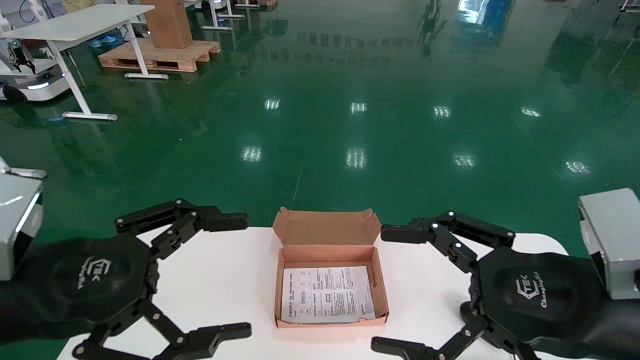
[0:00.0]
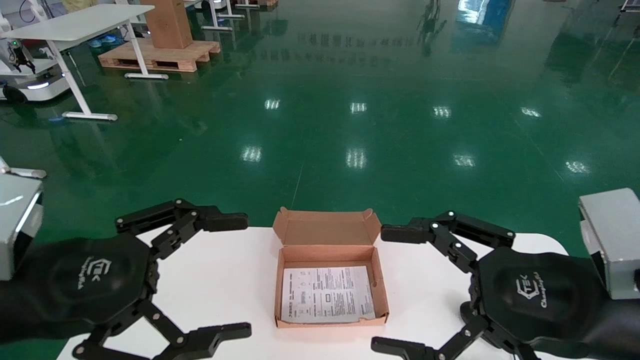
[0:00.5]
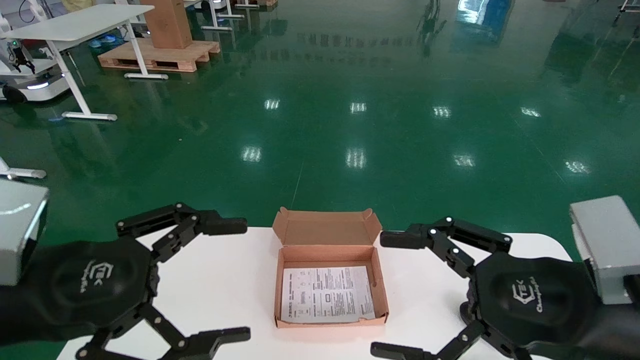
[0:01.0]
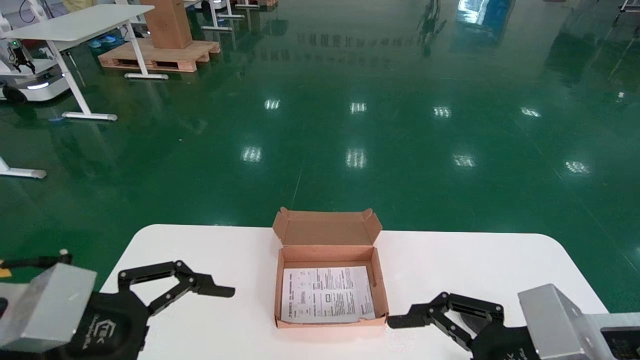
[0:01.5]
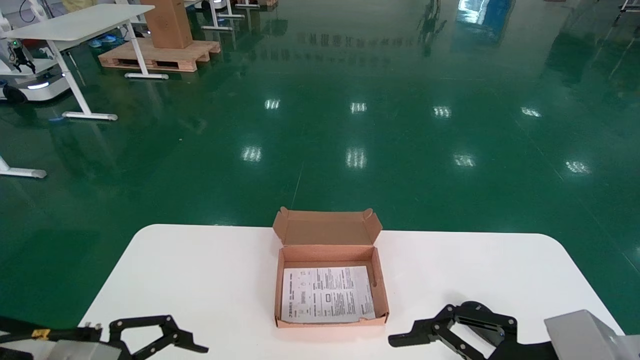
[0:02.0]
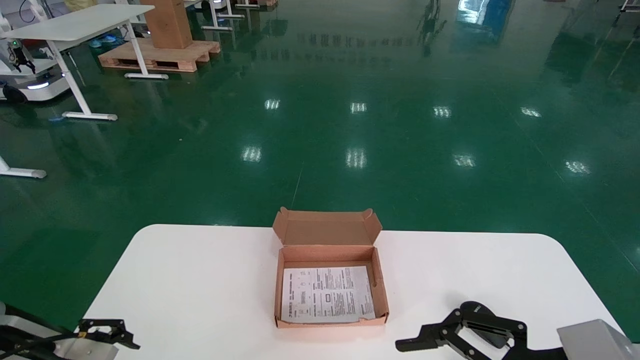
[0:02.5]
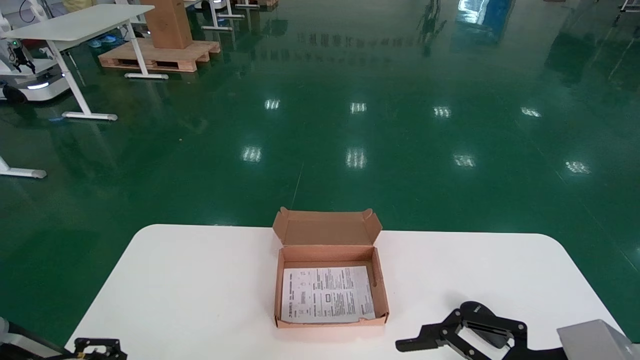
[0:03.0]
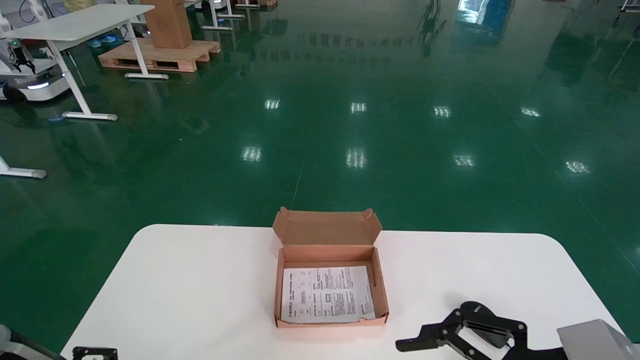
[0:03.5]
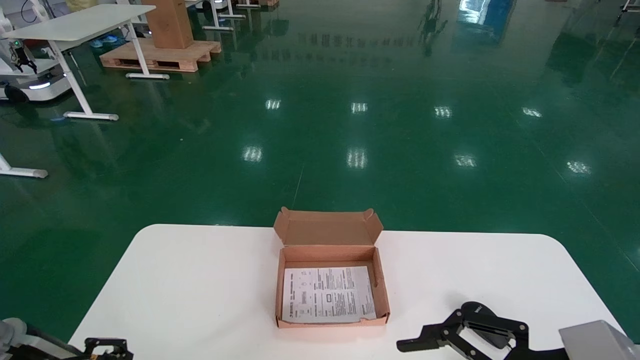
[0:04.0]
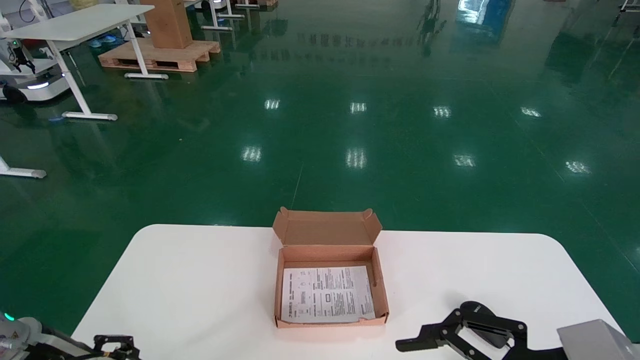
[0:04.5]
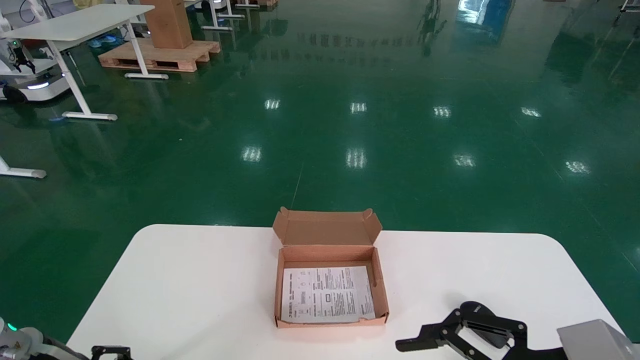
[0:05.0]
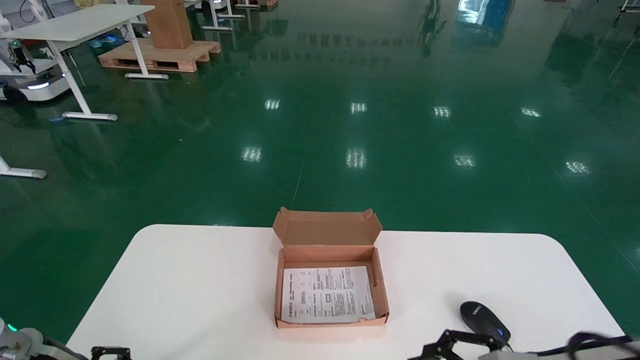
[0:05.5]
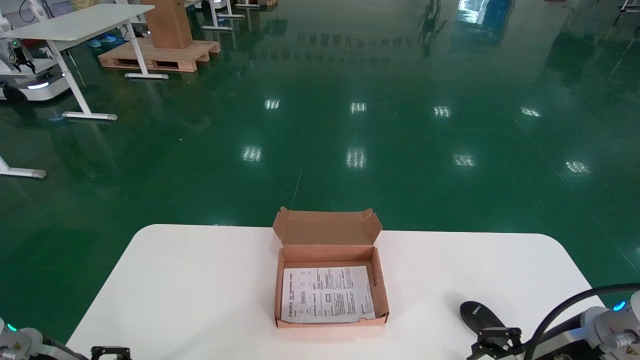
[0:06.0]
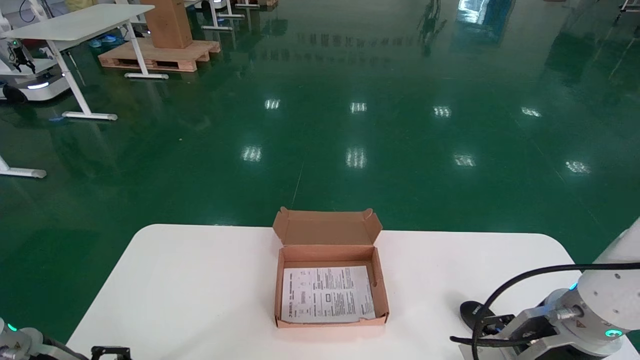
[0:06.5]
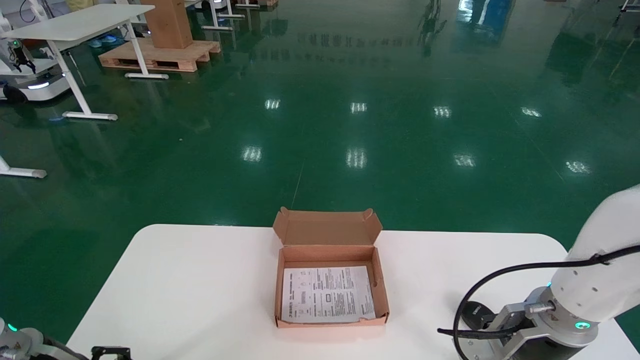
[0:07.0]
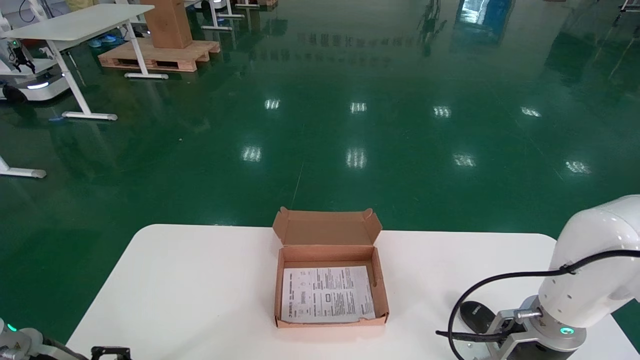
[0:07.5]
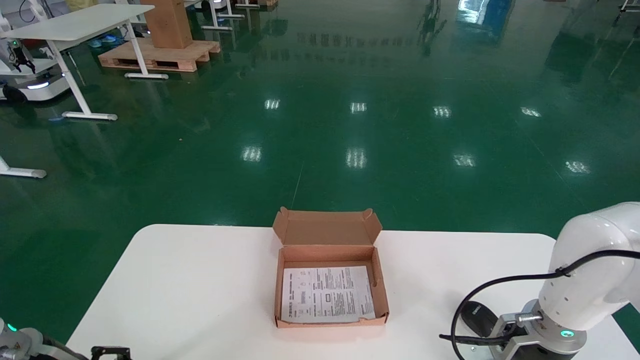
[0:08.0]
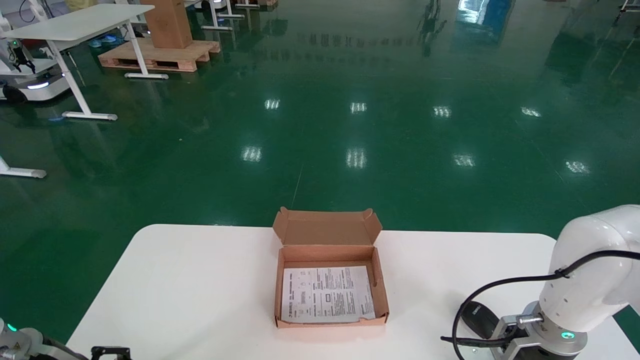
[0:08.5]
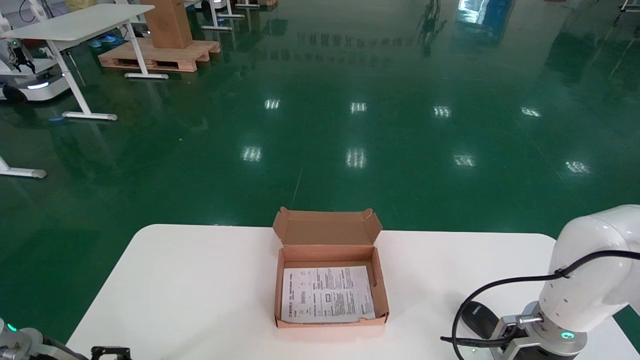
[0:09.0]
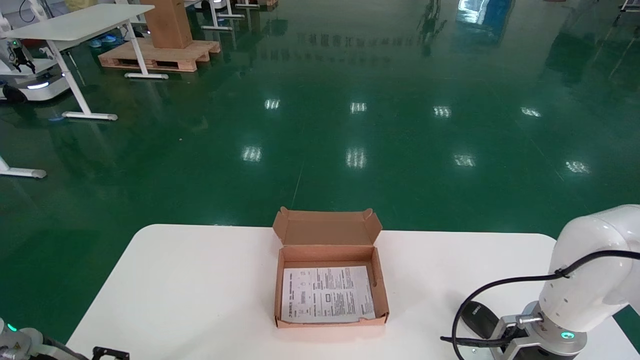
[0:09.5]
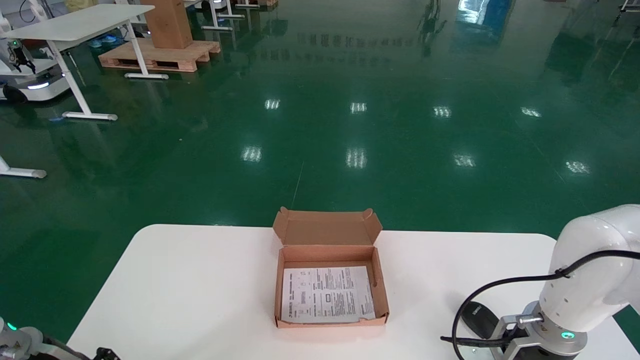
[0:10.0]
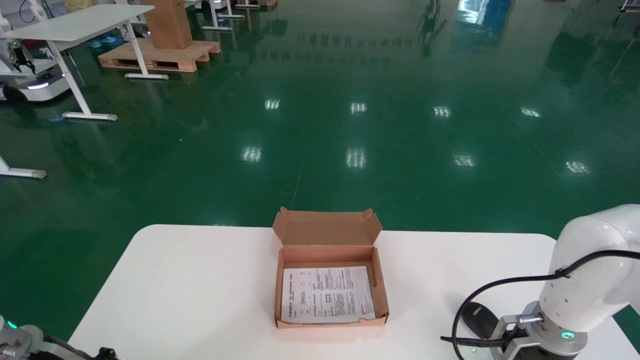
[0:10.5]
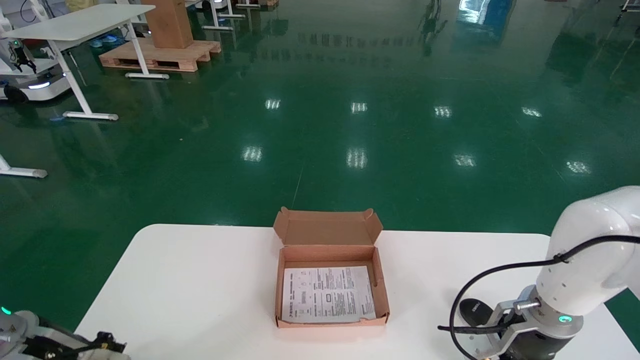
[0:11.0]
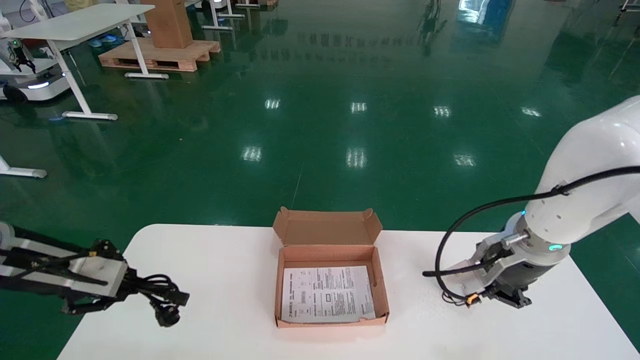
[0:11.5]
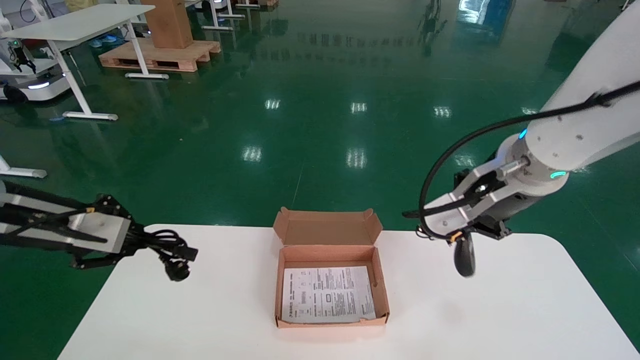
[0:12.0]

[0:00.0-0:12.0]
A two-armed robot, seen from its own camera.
Step, 0:01.0 to 0:11.5: Grab and pick up the mouse and power cord from the accessory packaging area.
0:00.0 to 0:02.0: The left gripper moves downward, approximately 5 cm.
0:02.0 to 0:04.0: The left gripper shifts about 15 cm downward, forward and to the left.
0:04.0 to 0:06.0: The left gripper changes place by approximately 5 cm.
0:06.0 to 0:08.0: The right gripper goes about 20 cm forward and downward.
0:08.0 to 0:10.0: The grippers move only a little.
0:10.0 to 0:12.0: The grippers both shift upward by roughly 5 cm. The left gripper closes up; the right gripper closes its fingers.

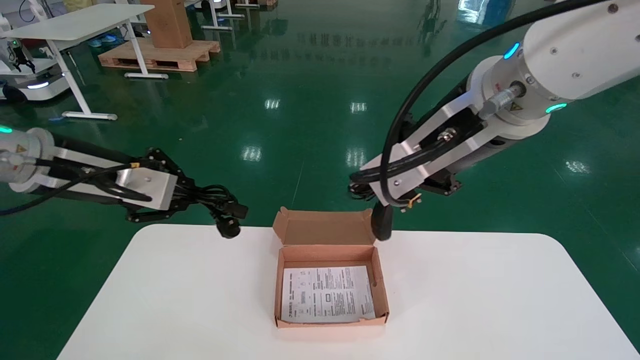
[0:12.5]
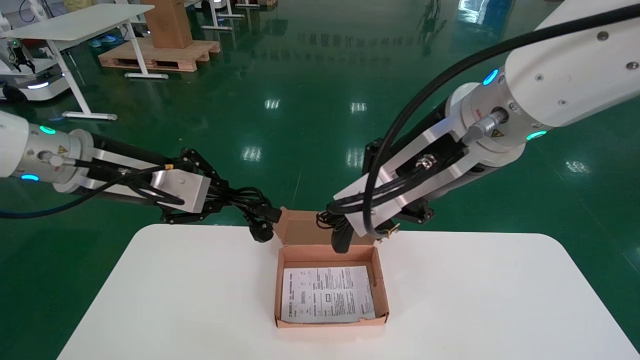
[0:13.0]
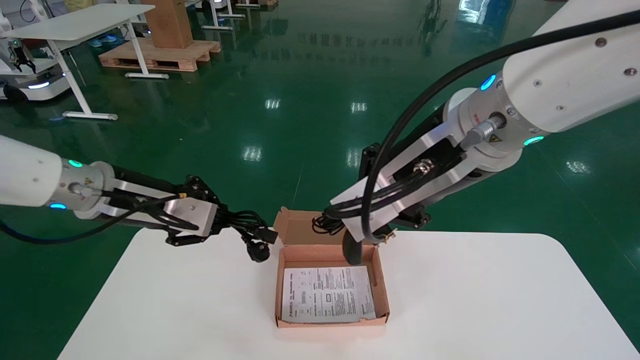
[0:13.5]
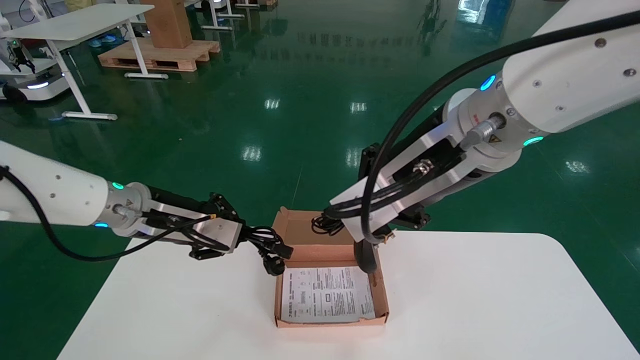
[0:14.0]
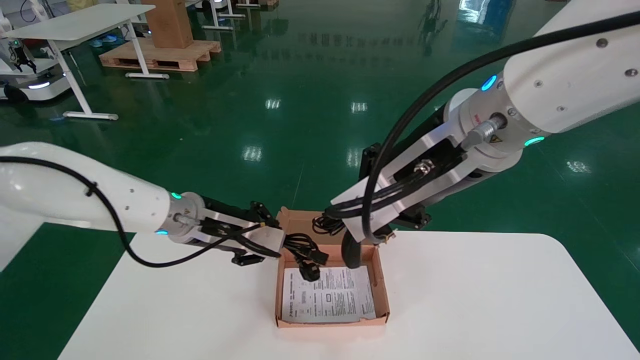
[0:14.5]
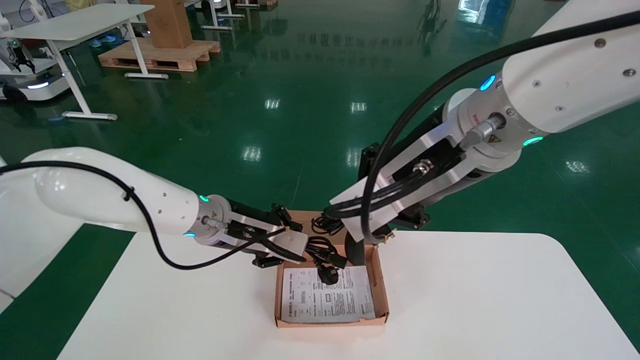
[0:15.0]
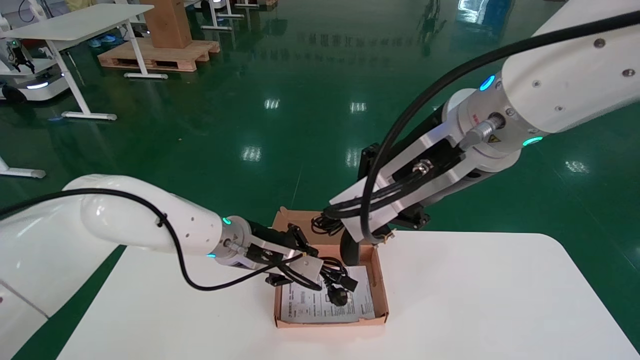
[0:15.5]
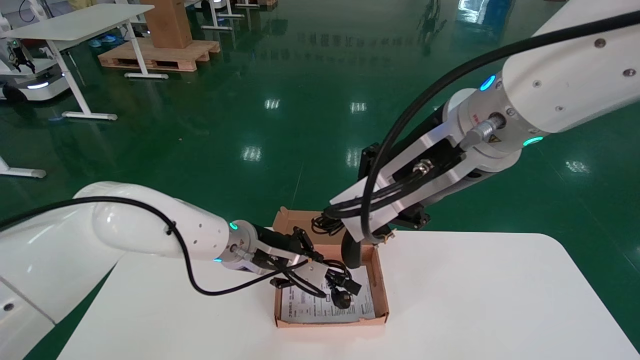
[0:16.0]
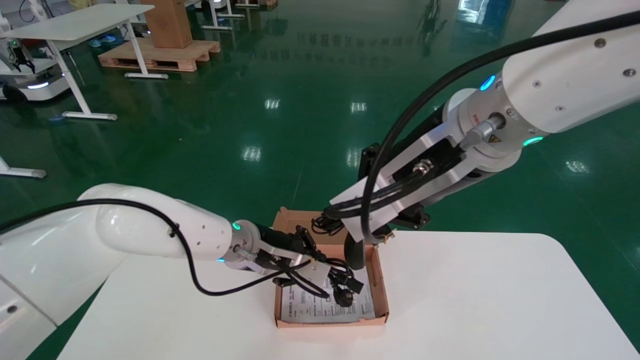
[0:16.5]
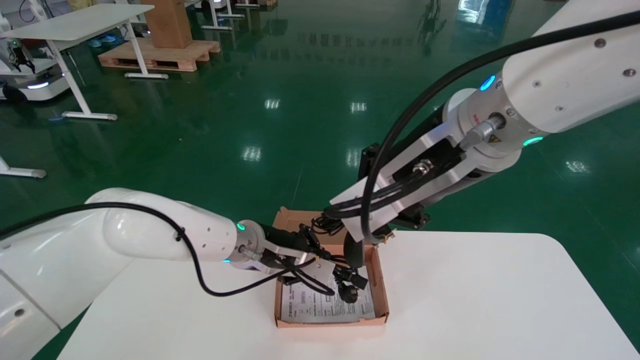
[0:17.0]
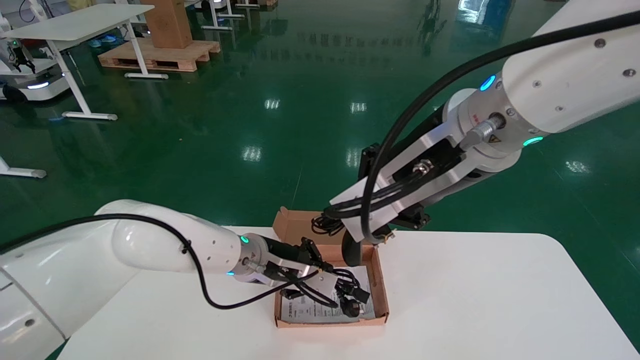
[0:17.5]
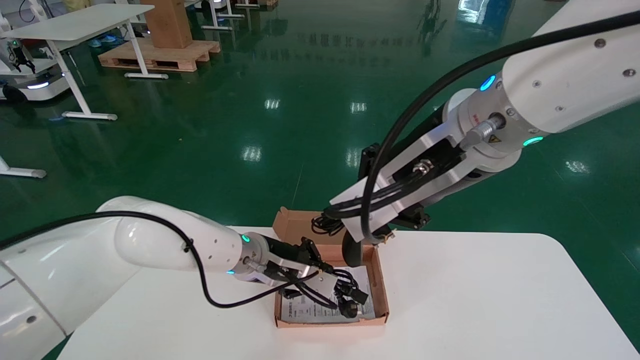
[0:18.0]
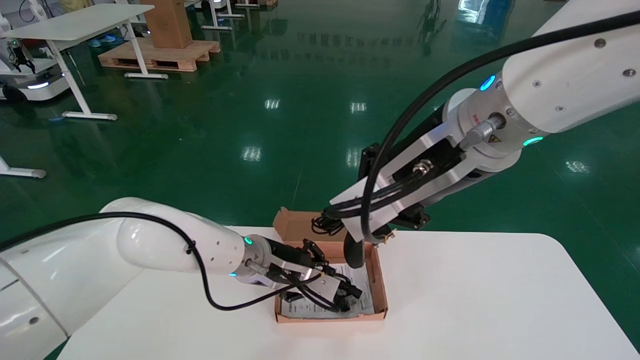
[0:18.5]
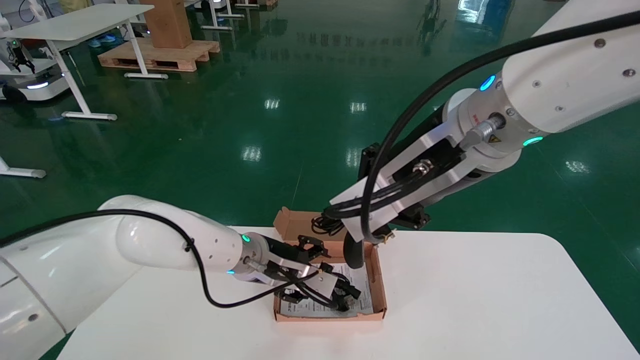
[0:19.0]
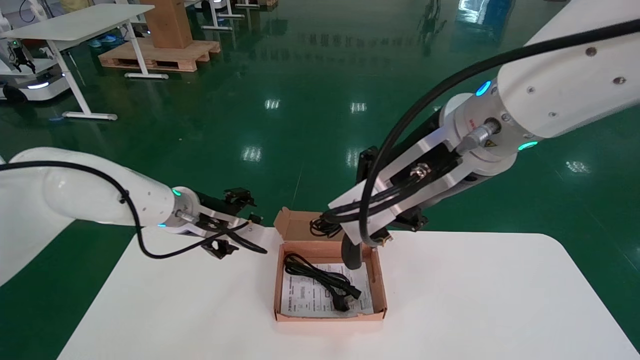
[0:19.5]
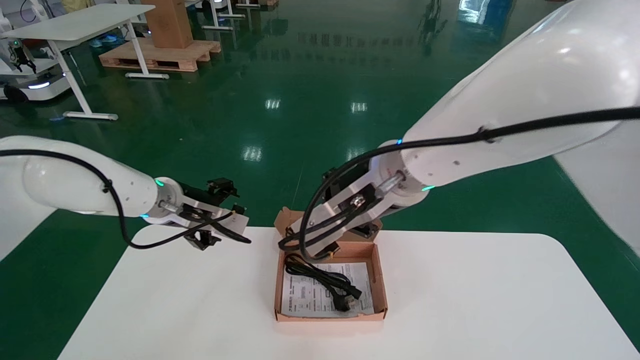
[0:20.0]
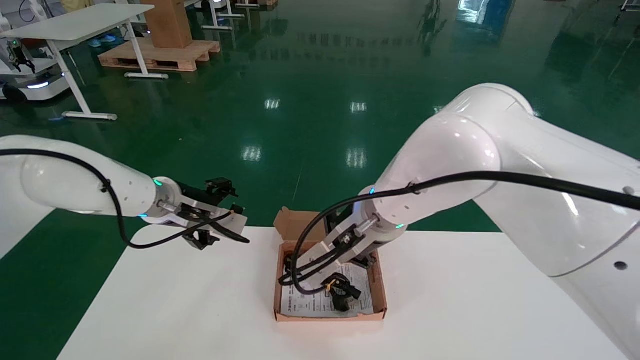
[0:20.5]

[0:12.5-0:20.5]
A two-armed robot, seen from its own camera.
0:12.5 to 0:14.5: The left gripper goes some 15 cm to the right, while the right gripper shifts about 20 cm upward, to the left and backward.
0:14.5 to 0:16.5: The left gripper is displaced to the right and downward by about 15 cm.
0:16.5 to 0:18.5: The grippers move only a little.
0:18.5 to 0:20.5: The left gripper shifts roughly 15 cm to the left and upward, and opens up.
